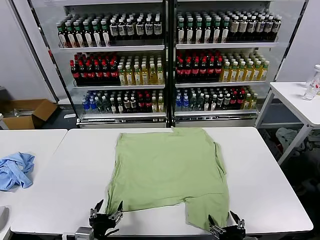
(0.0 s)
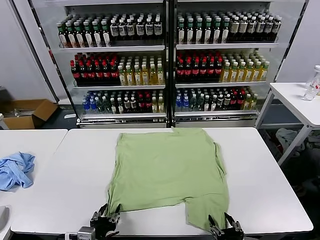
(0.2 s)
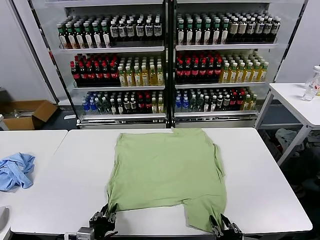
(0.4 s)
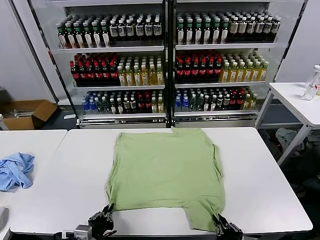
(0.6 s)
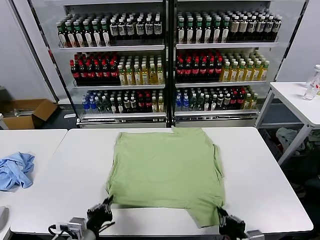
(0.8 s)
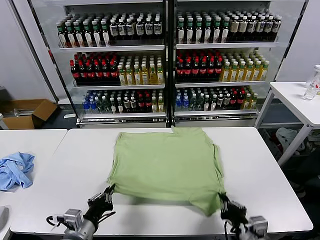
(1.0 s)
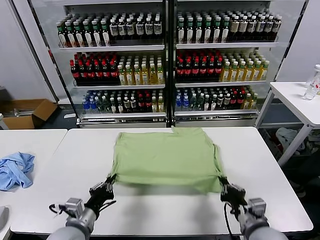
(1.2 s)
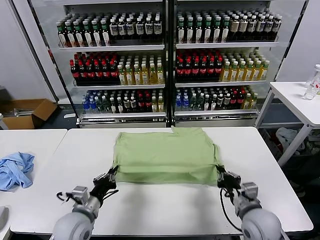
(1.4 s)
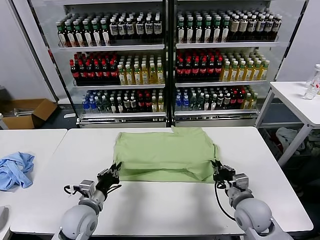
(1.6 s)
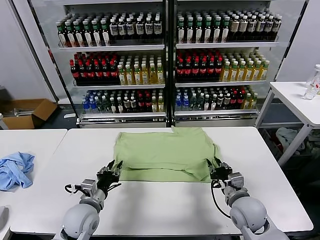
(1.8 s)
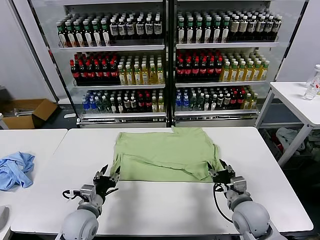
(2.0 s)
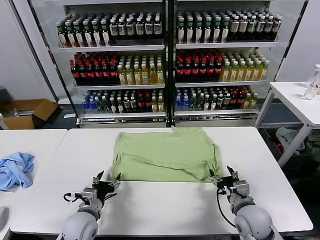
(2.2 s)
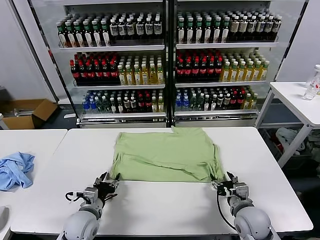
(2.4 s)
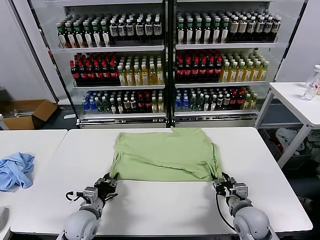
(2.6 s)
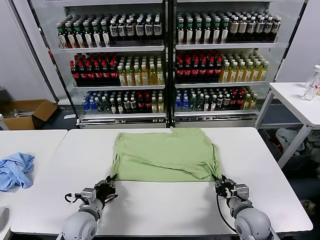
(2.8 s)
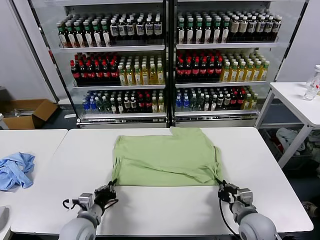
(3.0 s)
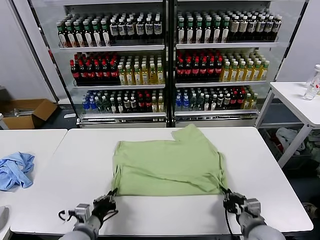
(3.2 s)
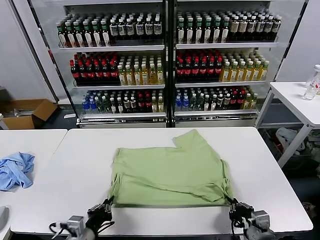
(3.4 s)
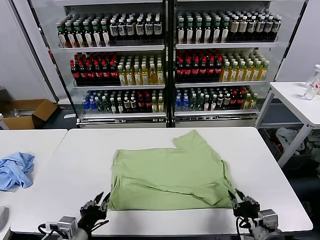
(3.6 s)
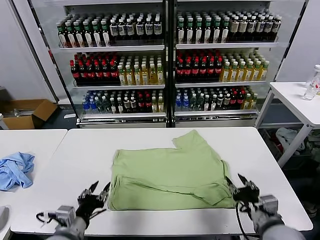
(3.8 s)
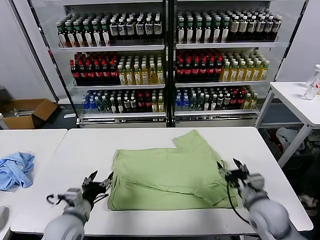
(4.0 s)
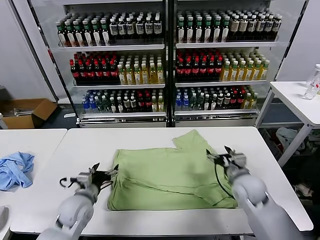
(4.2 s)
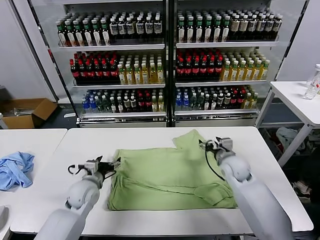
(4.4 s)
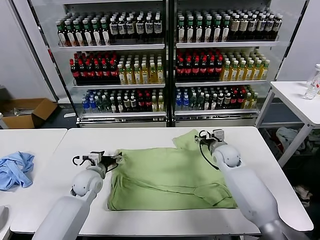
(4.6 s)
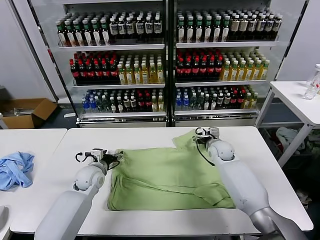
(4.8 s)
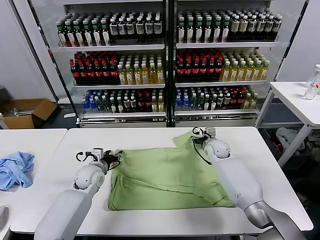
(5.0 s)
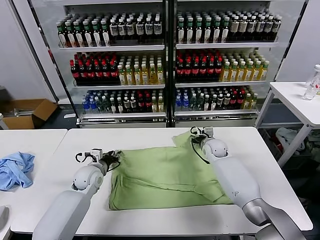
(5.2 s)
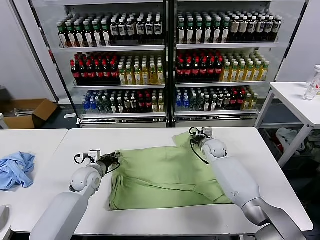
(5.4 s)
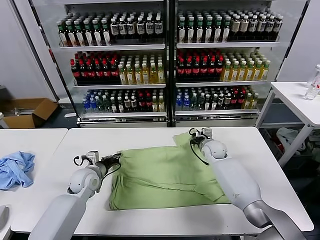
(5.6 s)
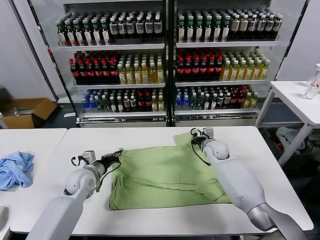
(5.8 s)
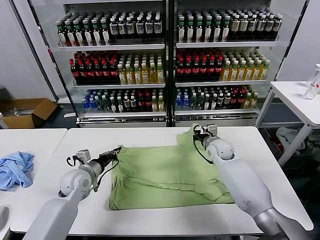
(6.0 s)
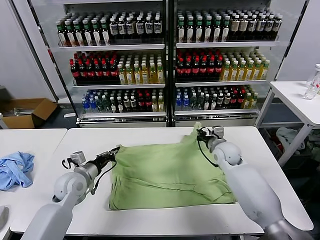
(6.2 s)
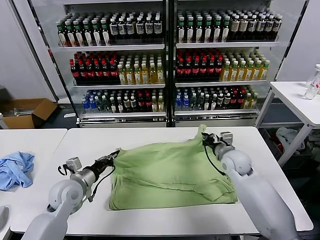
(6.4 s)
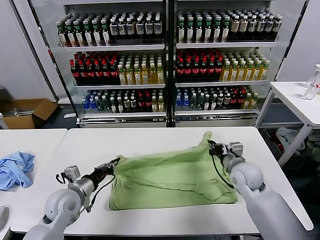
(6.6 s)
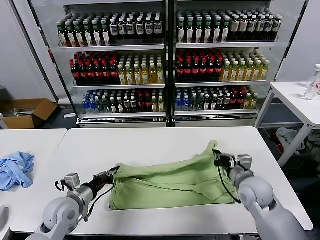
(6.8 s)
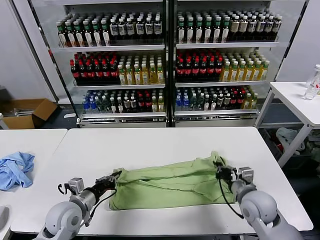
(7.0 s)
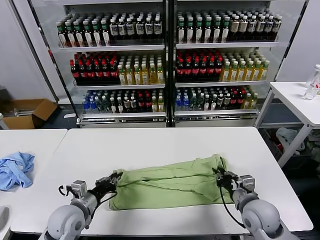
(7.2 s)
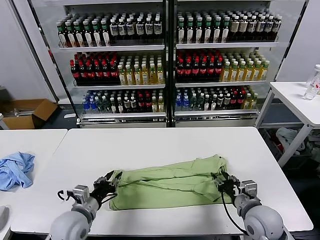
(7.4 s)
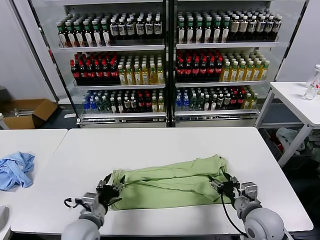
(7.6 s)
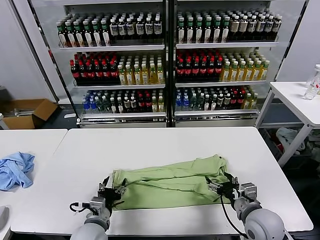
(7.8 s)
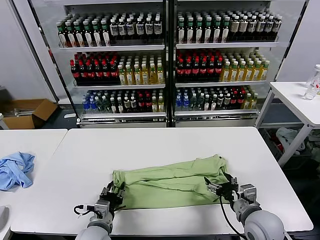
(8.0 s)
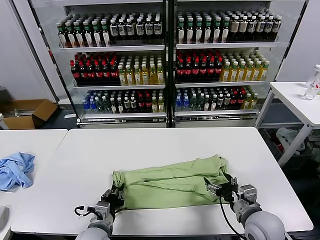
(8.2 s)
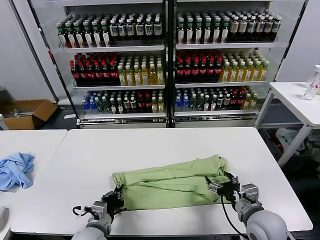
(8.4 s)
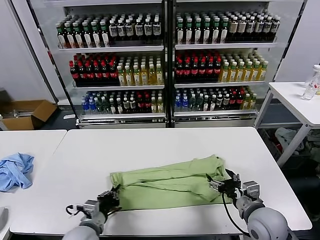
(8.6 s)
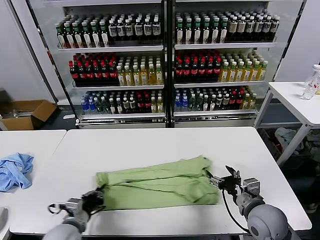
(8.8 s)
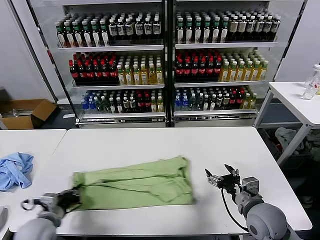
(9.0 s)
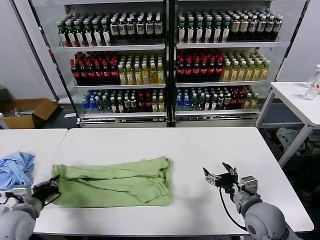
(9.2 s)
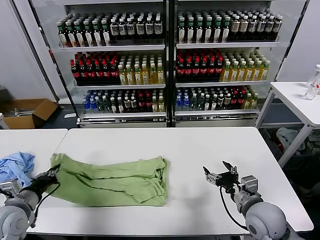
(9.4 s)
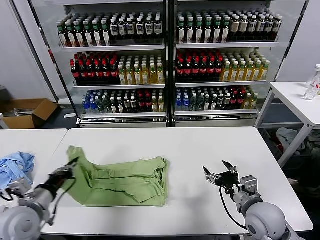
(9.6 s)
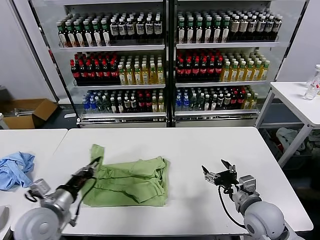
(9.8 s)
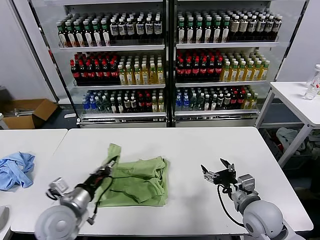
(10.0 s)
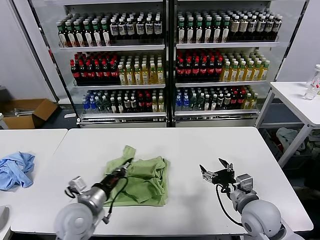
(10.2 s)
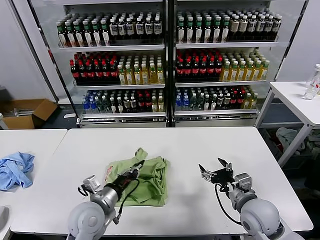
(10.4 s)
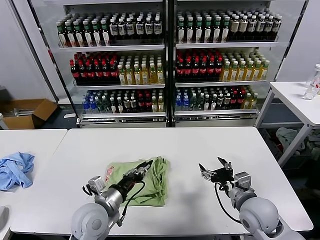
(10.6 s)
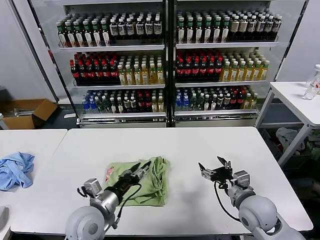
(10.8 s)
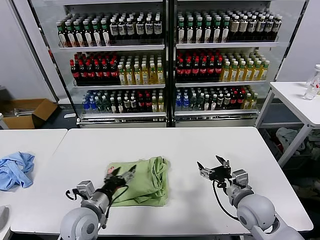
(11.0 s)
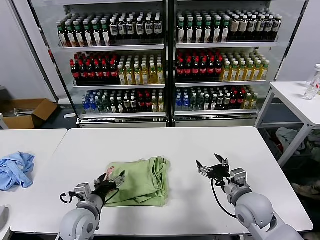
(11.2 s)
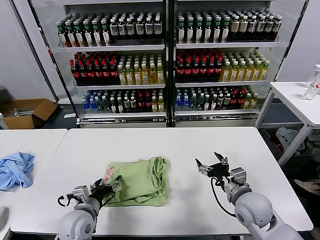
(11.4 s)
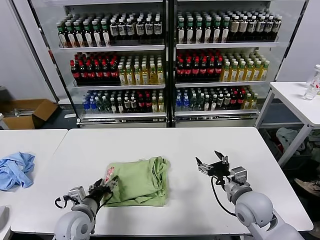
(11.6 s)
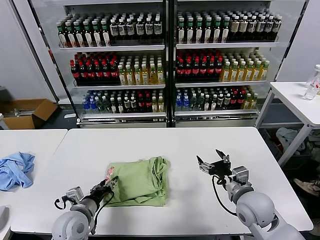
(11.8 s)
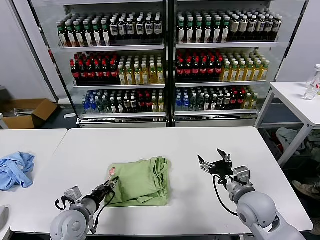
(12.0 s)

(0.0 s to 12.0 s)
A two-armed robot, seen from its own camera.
Task of the whole recording: fold and organize the clothes.
Step, 0.0 s - 0.6 s: use both grippers simultaneously to clamp the lower edge of the clothing fabric.
Step, 0.8 s - 2.0 s: use both grippers to drag the lower edge of the fabric forward and fold it over the upper edge.
Step, 2.2 s - 3.6 s: Drag the clothes downward with both gripper.
Step, 3.8 s - 5.6 s: use both grippers simultaneously to clamp the upper edge of the clothing fabric.
Step, 5.8 s - 7.4 s: use both grippers to drag the upper edge of the fabric backward and fold it over the lower edge.
Step, 7.6 s - 8.4 s: use the left gripper to clamp the left edge of the fabric.
Step, 8.6 s - 10.6 s: use the left gripper to drag the left edge of the fabric to the left and folds it over the right edge.
1.6 s - 3.0 s: The right gripper moves backward, some 5 cm, and opens and closes again. The left gripper opens and closes again.
3.0 s - 4.4 s: The left gripper travels forward by about 15 cm, and opens up. The right gripper moves forward, about 25 cm, and opens its fingers.
4.4 s - 6.0 s: The right gripper closes up. Meanwhile the left gripper closes.
6.0 s - 7.6 s: The right gripper travels backward by approximately 25 cm, and opens. Meanwhile the left gripper goes about 15 cm backward and to the right, and opens.
7.6 s - 9.0 s: The left gripper goes some 15 cm to the left, and closes.
9.0 s - 10.4 s: The left gripper travels to the right by approximately 15 cm.
10.4 s - 12.0 s: The left gripper heads to the left, covering some 5 cm, and opens and closes again.

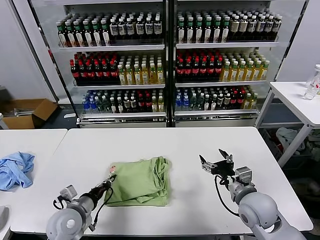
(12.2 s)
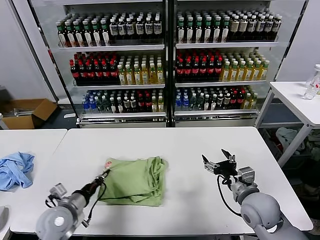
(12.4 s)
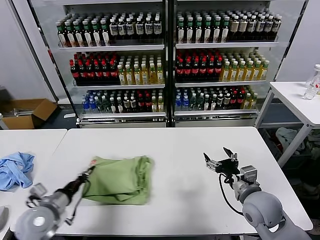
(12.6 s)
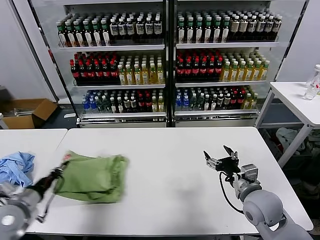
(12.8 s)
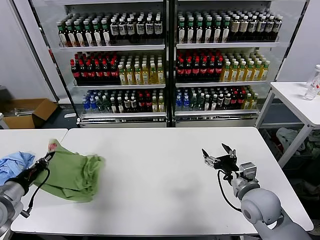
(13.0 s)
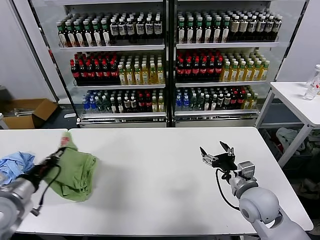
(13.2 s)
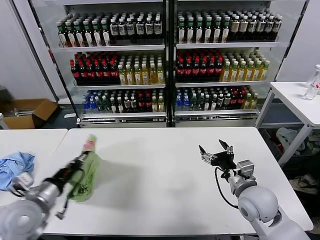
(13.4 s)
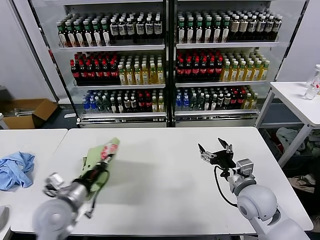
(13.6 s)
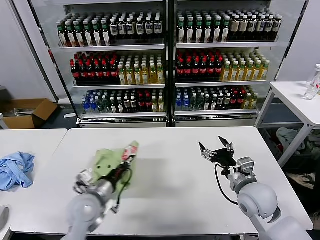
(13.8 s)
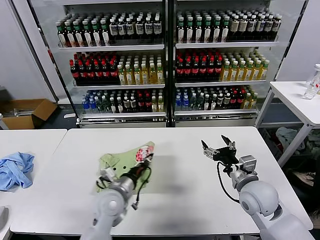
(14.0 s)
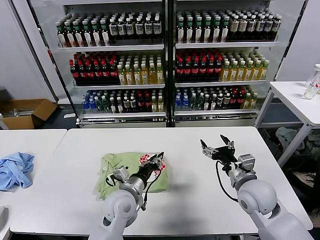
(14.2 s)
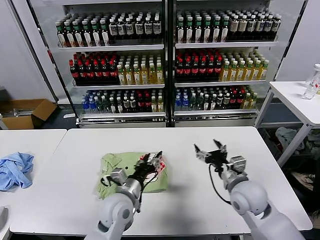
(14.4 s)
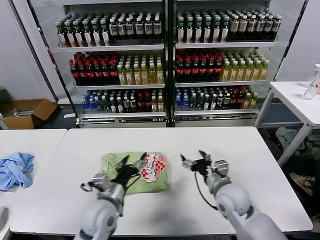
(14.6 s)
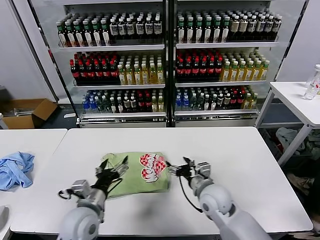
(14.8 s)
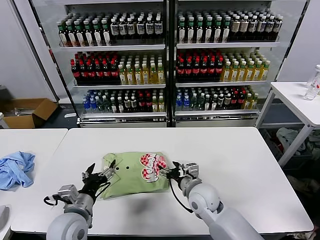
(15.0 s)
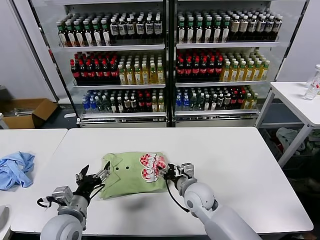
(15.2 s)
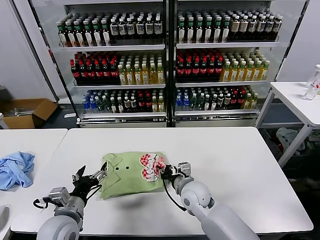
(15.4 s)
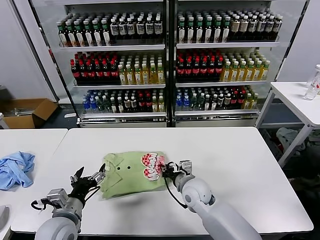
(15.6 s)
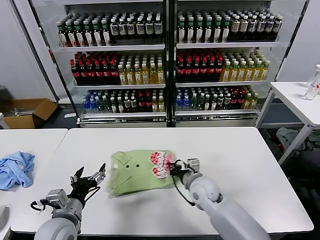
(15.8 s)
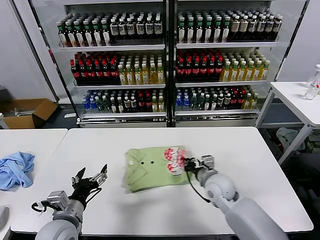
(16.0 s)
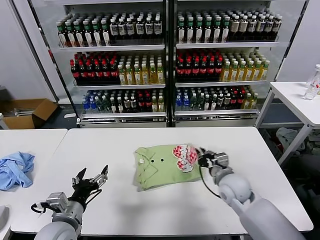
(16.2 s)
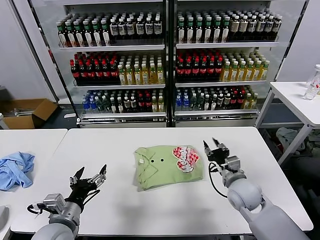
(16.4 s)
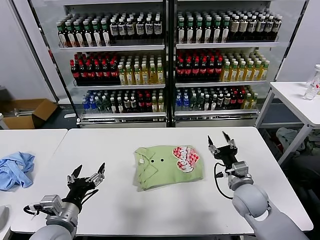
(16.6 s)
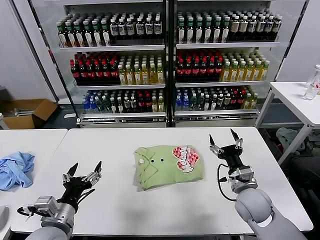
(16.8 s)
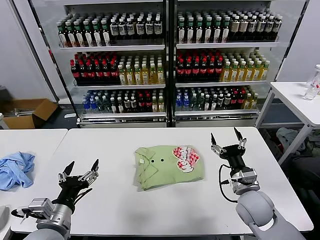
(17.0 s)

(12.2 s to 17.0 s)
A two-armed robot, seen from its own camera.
Task of the whole recording: fold and organize the clothes.
Step, 12.2 s - 14.2 s: Flip the folded clothes over with left gripper.
Step, 14.4 s - 16.2 s: Drag the clothes to the center of the table.
12.2 s - 13.8 s: The left gripper shifts approximately 5 cm upward, and moves about 15 cm to the left and comes back.
13.8 s - 15.4 s: The left gripper moves backward, approximately 5 cm, travels to the right and back again, approximately 10 cm each way, and opens up, while the right gripper goes about 15 cm to the left and downward, and closes.
15.4 s - 17.0 s: The left gripper moves about 5 cm. The right gripper goes approximately 15 cm to the right, and opens.
